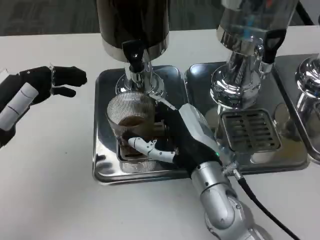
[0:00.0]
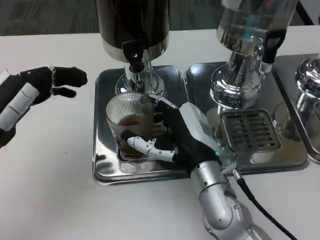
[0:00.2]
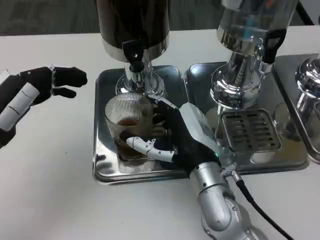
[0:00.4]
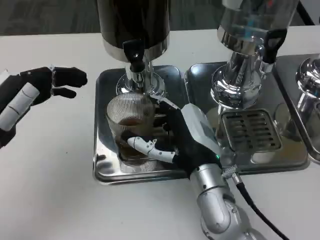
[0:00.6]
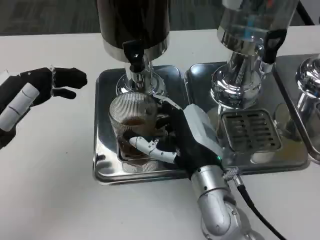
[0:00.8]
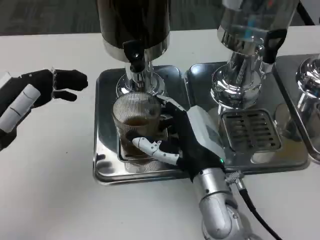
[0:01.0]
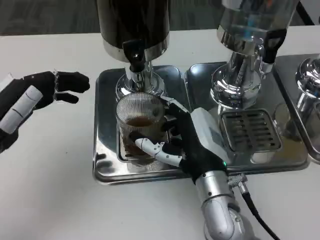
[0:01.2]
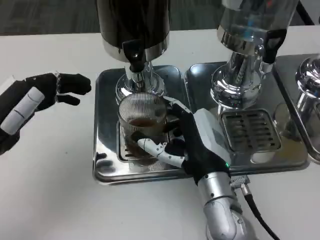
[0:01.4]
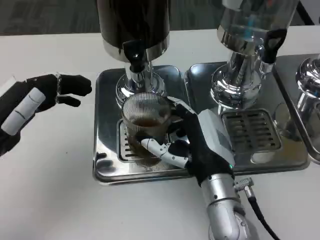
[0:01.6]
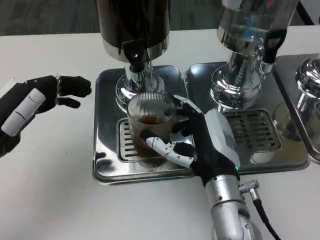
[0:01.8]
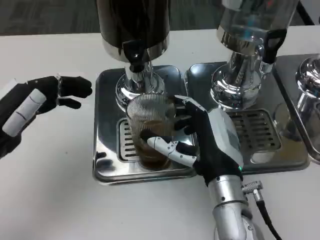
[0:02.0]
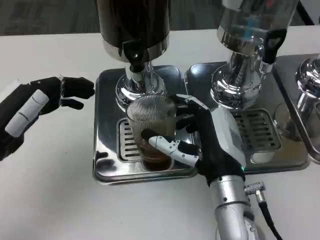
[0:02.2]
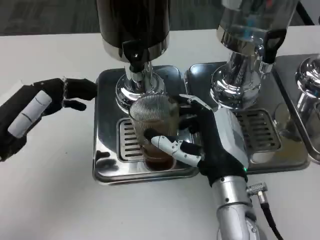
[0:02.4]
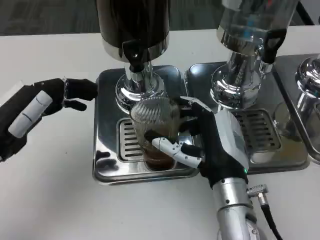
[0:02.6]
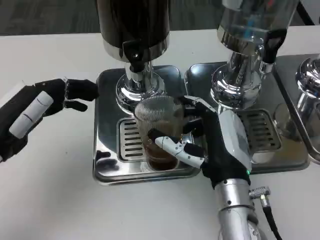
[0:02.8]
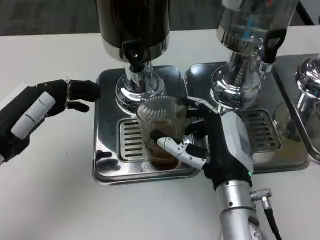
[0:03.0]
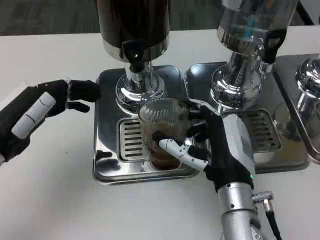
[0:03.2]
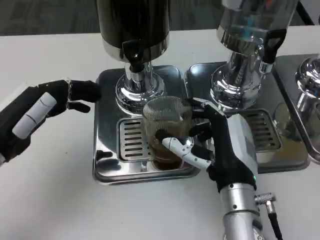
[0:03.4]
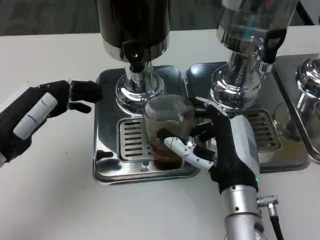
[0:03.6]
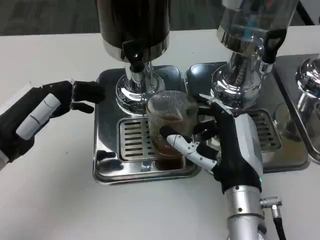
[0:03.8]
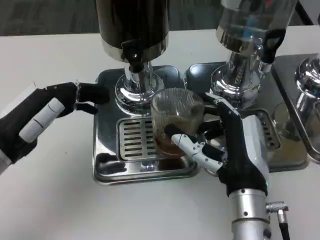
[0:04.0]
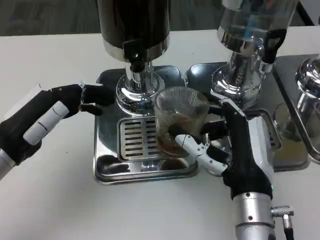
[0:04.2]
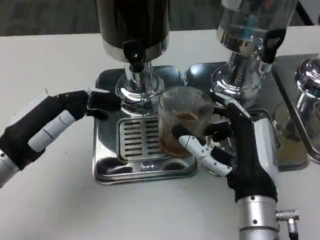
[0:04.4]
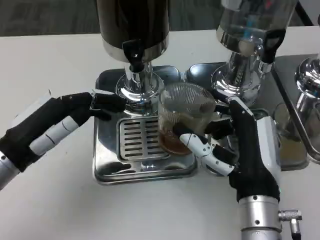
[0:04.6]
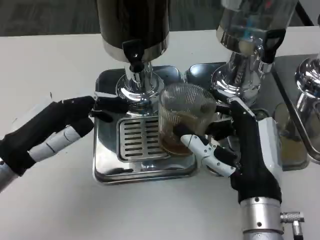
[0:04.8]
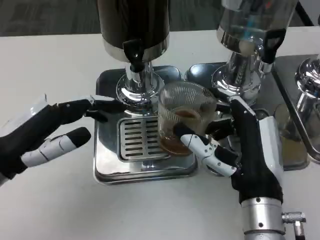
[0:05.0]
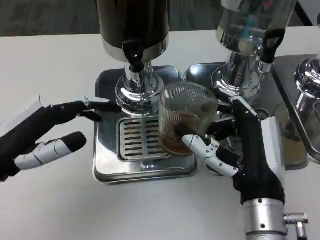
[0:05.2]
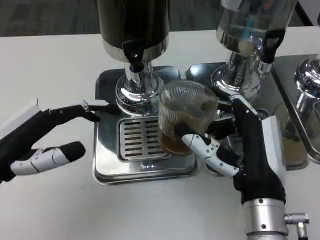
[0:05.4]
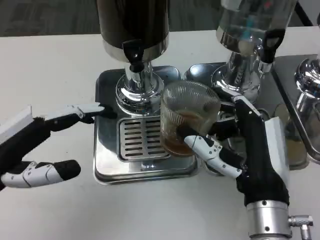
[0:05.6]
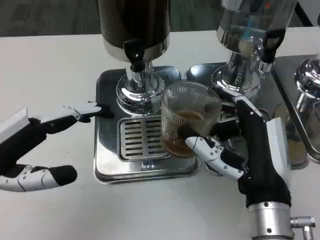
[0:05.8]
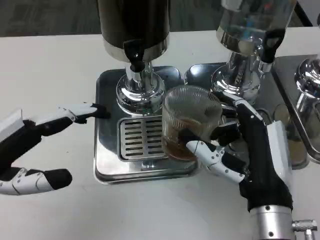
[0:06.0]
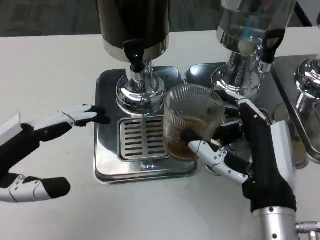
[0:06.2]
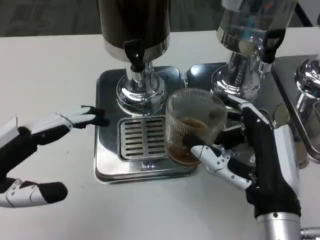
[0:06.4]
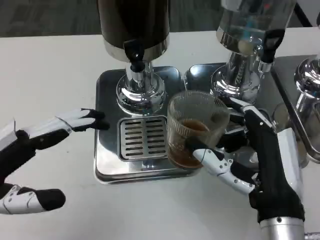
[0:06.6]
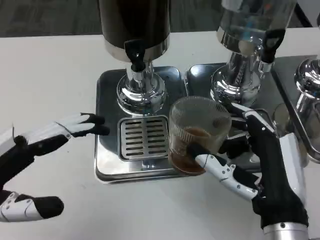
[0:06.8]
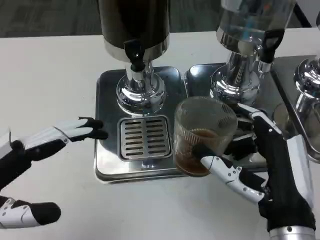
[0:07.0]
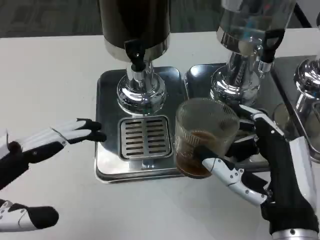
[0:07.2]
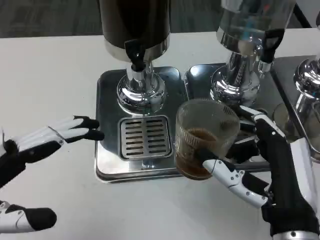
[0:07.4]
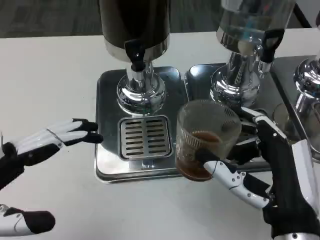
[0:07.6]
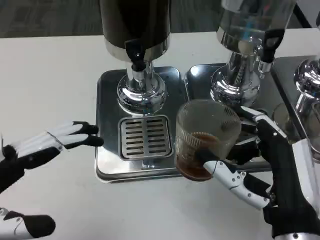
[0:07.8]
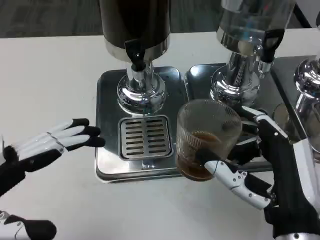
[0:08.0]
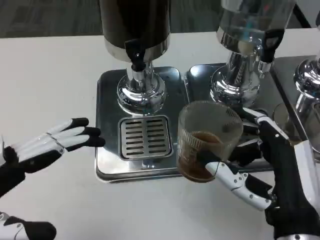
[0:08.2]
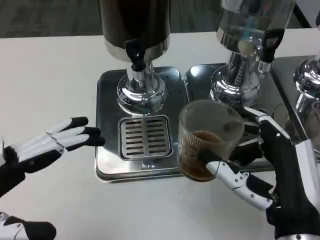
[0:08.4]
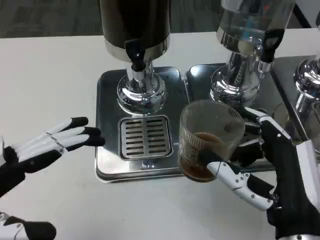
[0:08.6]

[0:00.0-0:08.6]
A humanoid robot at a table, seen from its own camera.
Task of the whole recording: Grasp the cup under the faucet to collect the drink, then remove the cup.
0:00.0 to 0:02.8: The hands stay close to where they were, moving slightly.
0:04.4 to 0:05.8: The left hand moves backward, approximately 5 cm.
0:07.2 to 0:08.6: Both hands stay put.

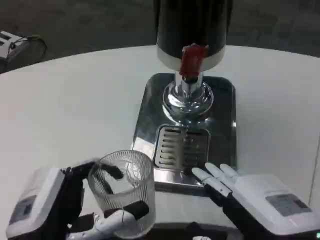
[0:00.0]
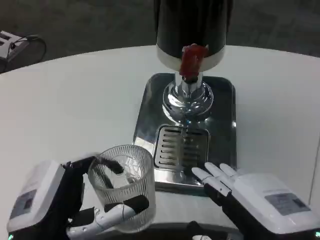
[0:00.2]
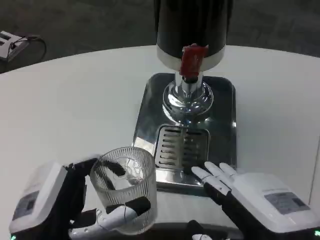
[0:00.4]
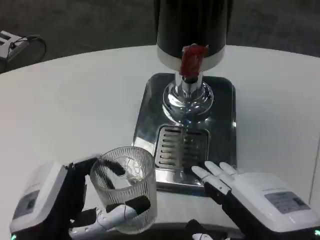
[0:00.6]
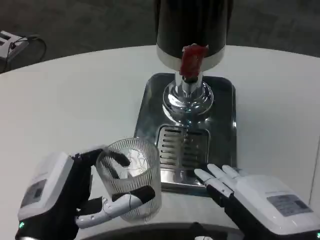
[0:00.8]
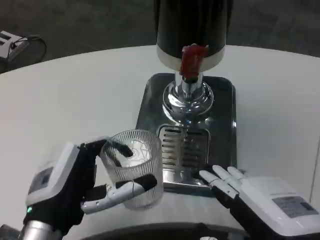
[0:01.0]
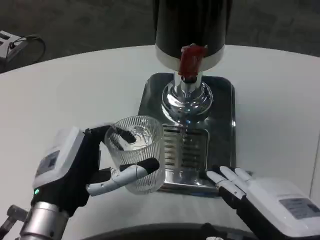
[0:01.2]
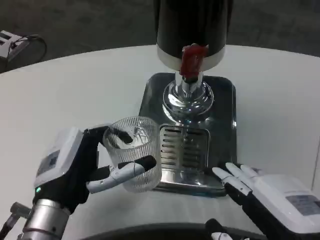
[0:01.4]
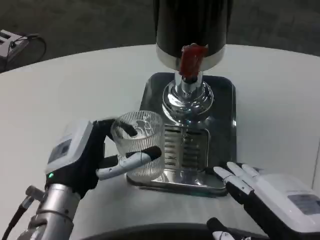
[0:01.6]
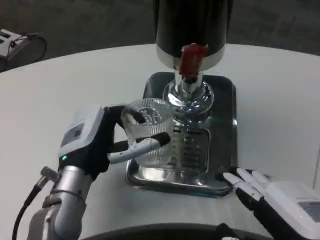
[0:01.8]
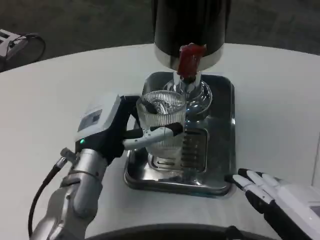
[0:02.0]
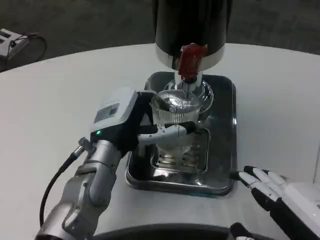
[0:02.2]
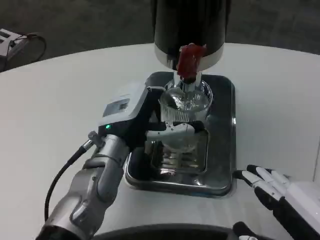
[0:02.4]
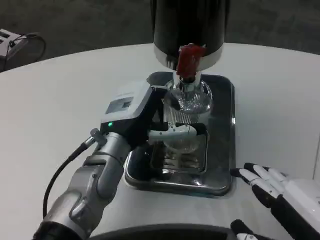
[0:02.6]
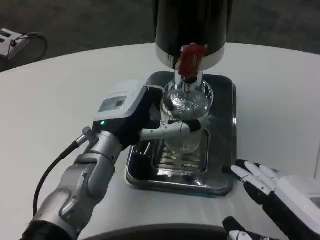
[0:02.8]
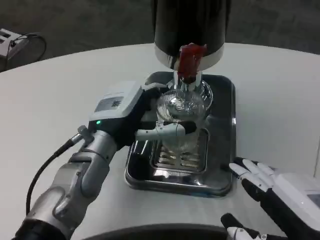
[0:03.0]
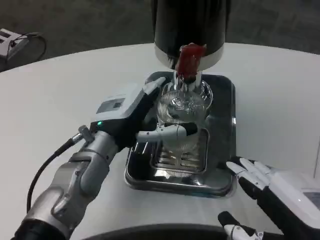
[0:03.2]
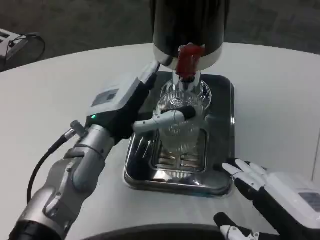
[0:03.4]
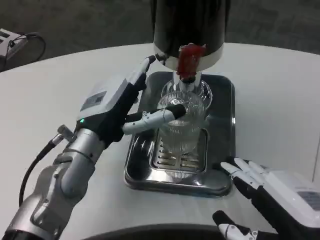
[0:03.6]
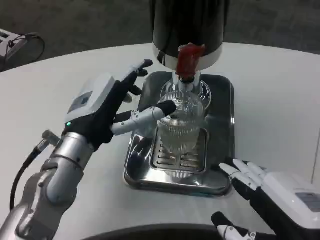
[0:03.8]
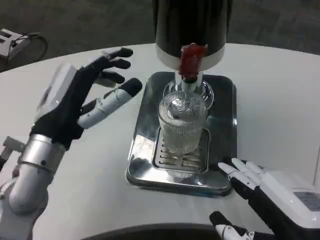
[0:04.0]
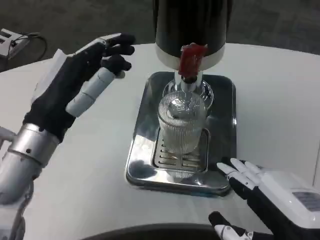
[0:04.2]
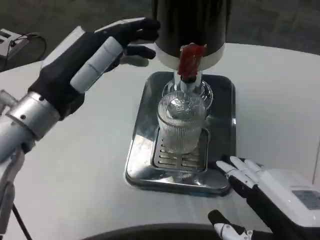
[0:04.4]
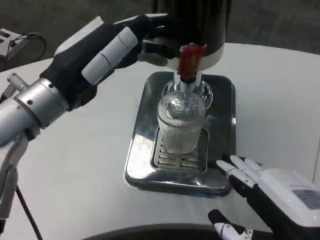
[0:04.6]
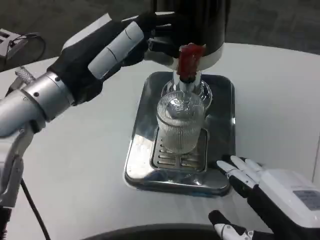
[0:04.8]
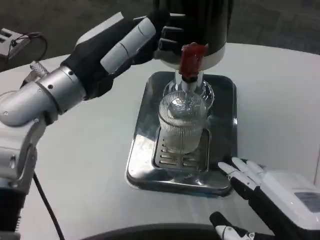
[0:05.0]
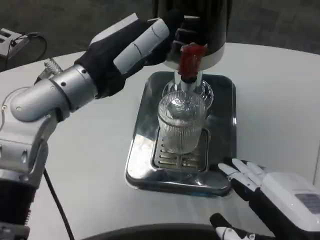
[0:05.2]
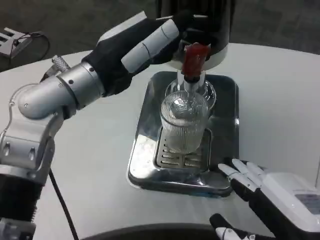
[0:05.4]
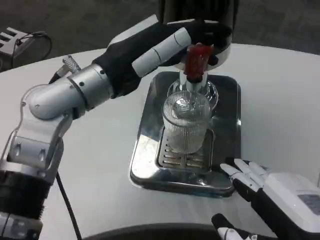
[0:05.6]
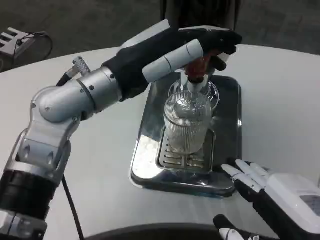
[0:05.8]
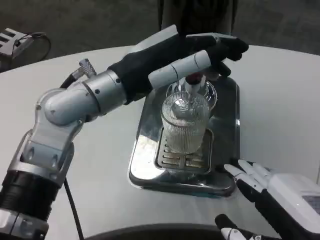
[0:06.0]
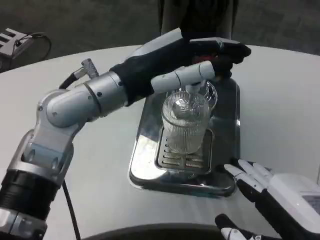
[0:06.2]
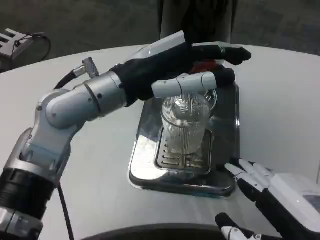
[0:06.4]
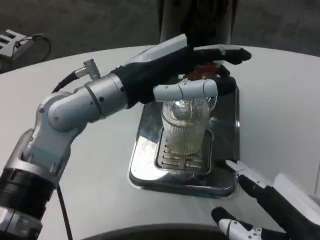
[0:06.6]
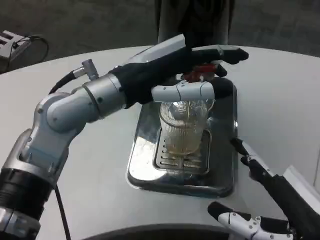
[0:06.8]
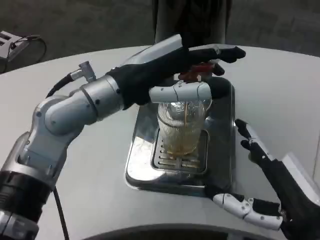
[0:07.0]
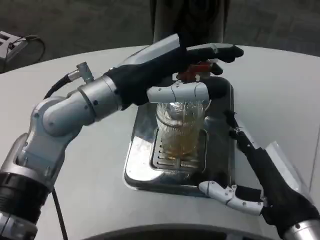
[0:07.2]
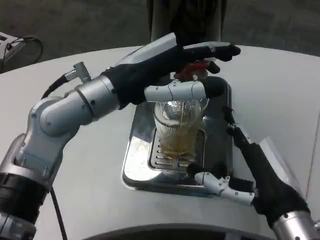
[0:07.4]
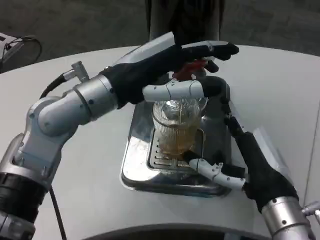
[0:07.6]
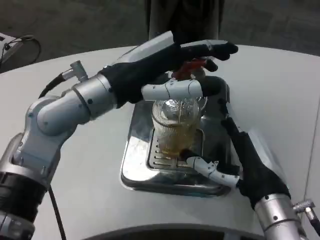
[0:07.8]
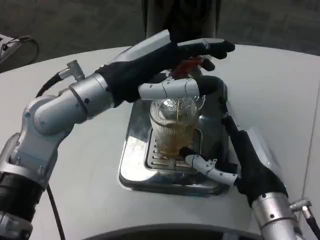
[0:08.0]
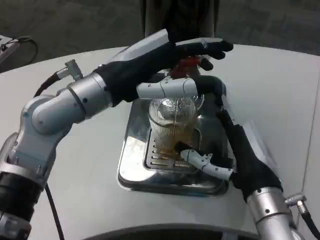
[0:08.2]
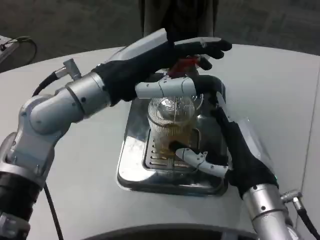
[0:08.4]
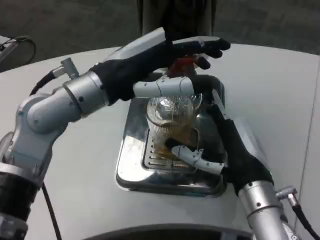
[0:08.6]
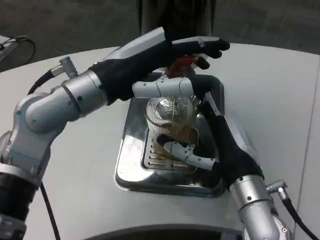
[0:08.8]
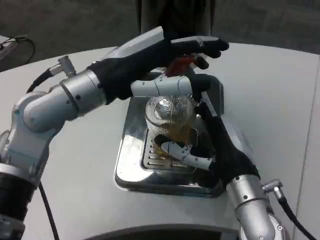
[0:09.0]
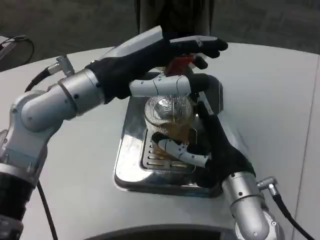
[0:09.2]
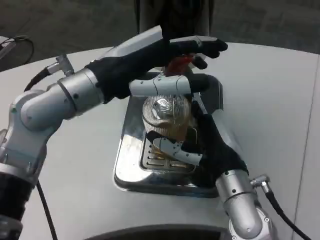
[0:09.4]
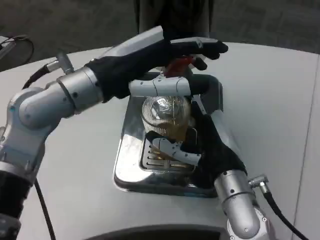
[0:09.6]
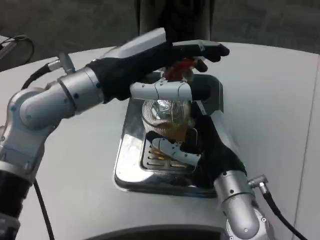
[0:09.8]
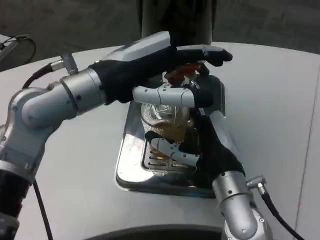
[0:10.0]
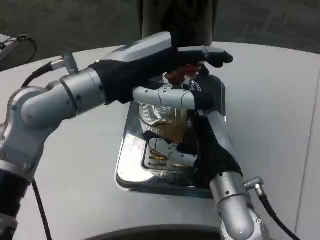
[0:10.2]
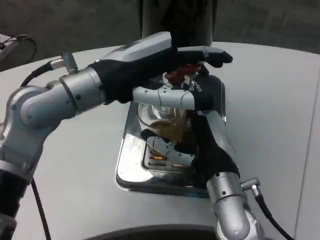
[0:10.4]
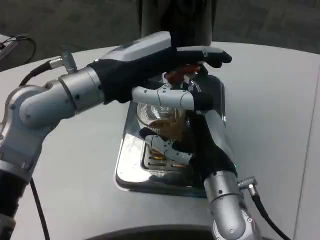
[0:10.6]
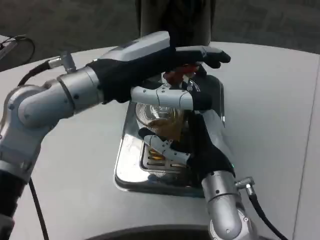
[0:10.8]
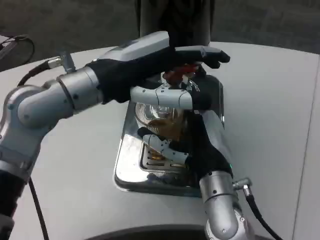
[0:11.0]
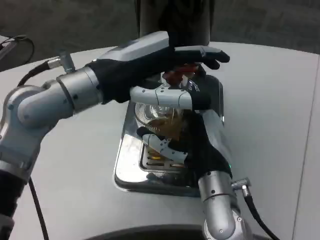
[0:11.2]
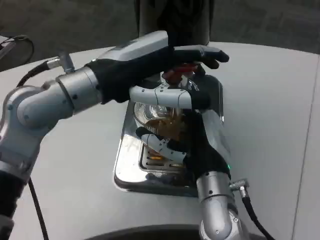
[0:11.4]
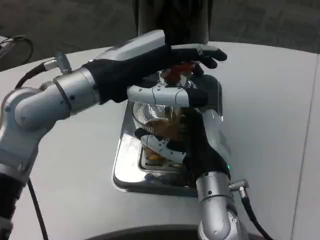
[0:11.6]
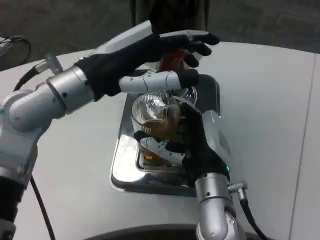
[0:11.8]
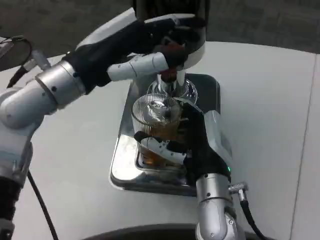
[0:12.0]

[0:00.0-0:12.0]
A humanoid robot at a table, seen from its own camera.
Task of the whole recording: Grasp the cup under the faucet to collect the drink, then remove the cup.
0:00.0 to 0:01.6: The left hand shifts some 10 cm forward.
0:01.6 to 0:03.0: The left hand heads forward, covering about 5 cm.
0:03.0 to 0:04.4: The left hand moves upward and to the left, approximately 10 cm.
0:04.4 to 0:06.0: The left hand moves to the right, about 5 cm.
0:06.0 to 0:07.6: The right hand is displaced forward and downward by some 15 cm.
0:07.6 to 0:09.0: The right hand moves about 5 cm.

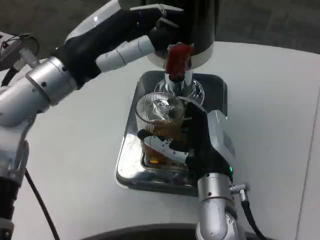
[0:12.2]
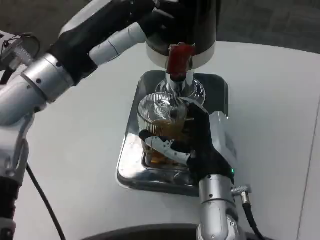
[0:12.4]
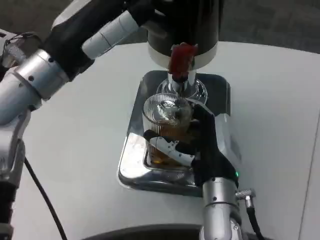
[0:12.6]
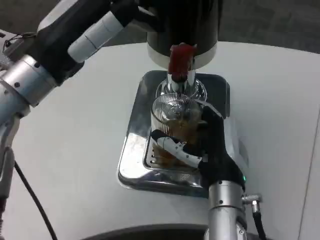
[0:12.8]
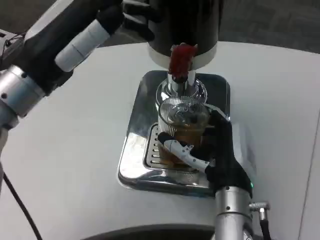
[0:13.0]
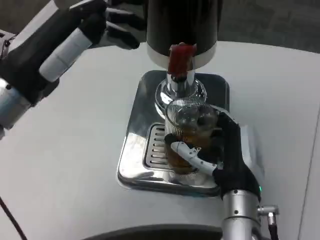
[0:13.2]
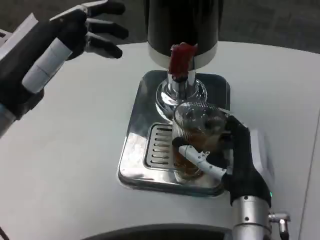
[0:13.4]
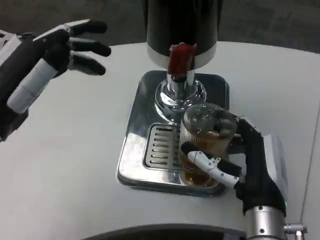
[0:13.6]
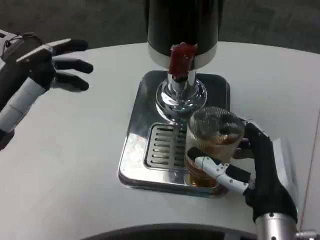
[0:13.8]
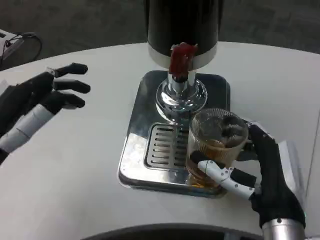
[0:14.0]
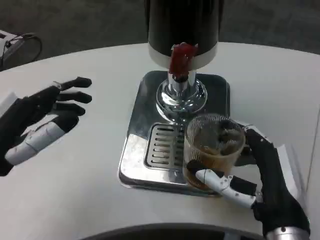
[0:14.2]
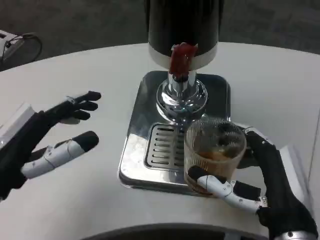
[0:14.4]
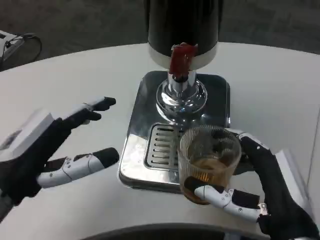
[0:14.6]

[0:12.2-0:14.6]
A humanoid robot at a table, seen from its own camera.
Task of the whole recording: Grasp the cup under the faucet to collect the drink, then remove the cup.
0:12.2 to 0:13.4: The right hand ends up about 5 cm from where it was; the left hand moves backward and to the left, roughly 10 cm.
0:13.4 to 0:14.6: The right hand heads backward, covering about 5 cm; the left hand shifts approximately 10 cm downward and backward.
